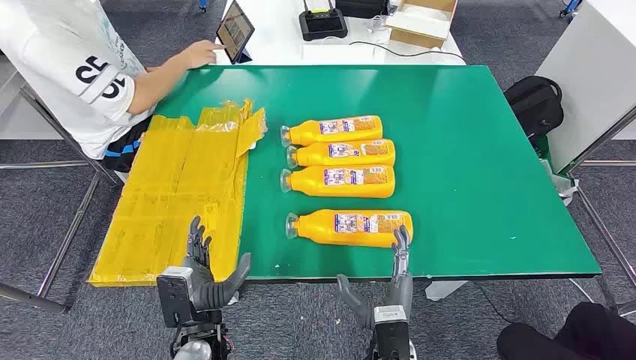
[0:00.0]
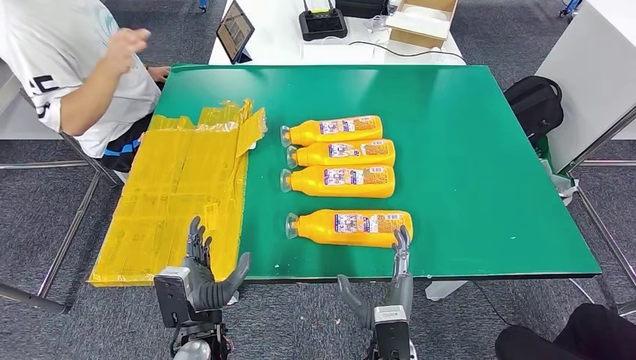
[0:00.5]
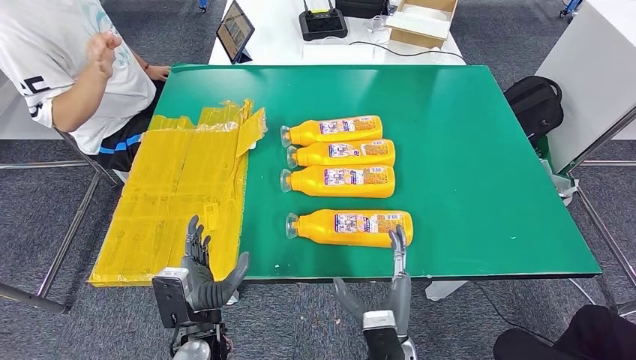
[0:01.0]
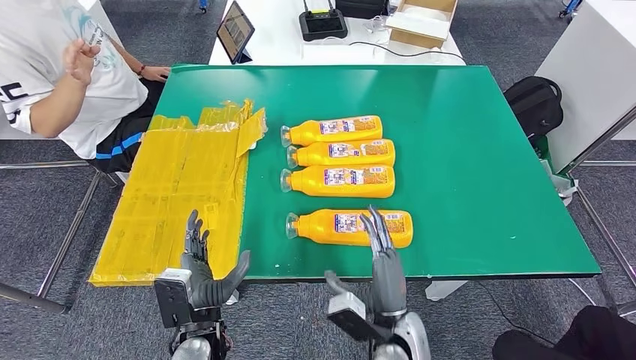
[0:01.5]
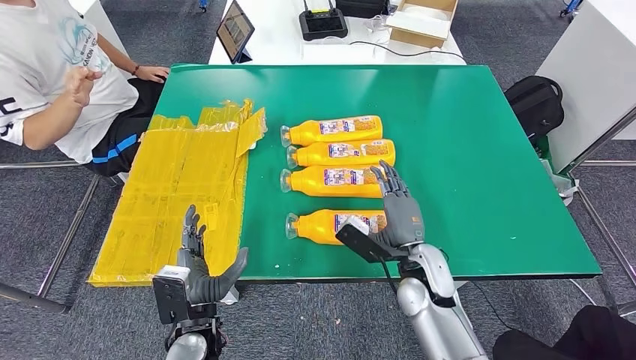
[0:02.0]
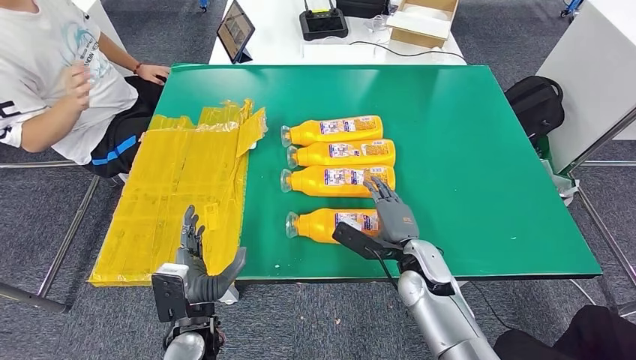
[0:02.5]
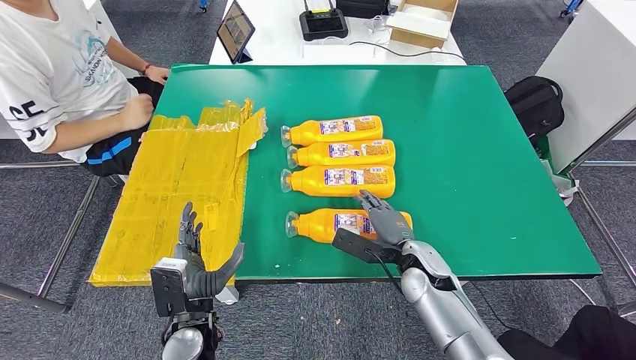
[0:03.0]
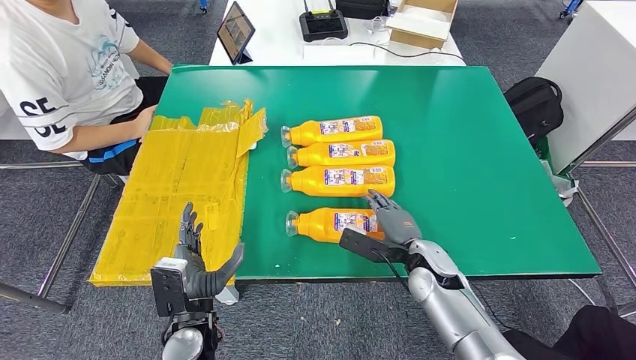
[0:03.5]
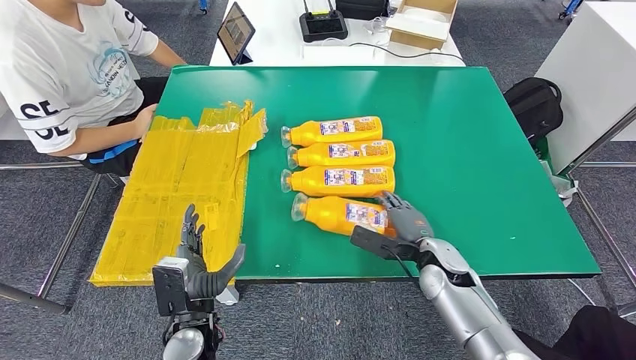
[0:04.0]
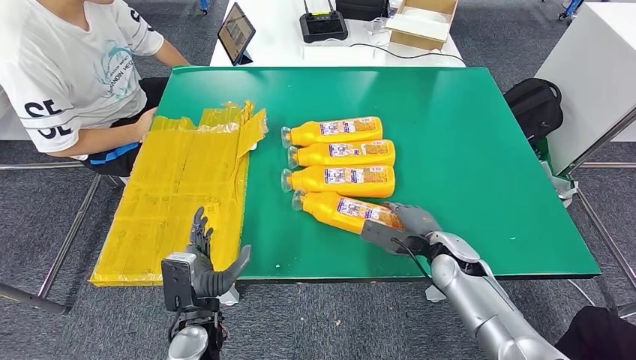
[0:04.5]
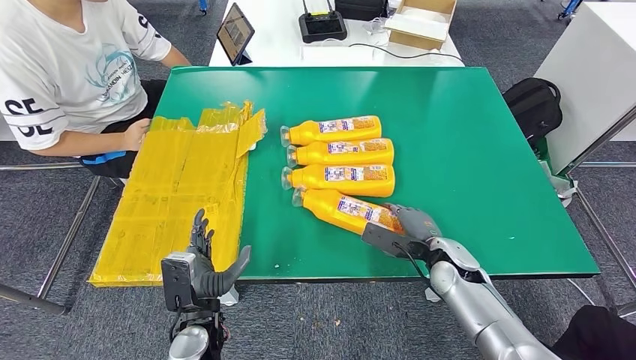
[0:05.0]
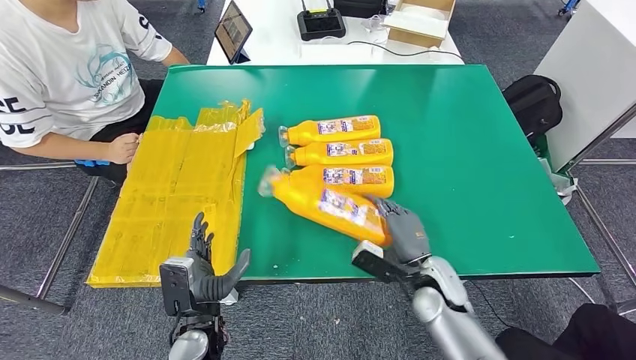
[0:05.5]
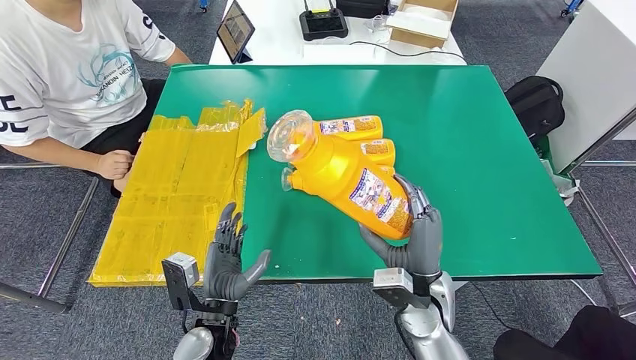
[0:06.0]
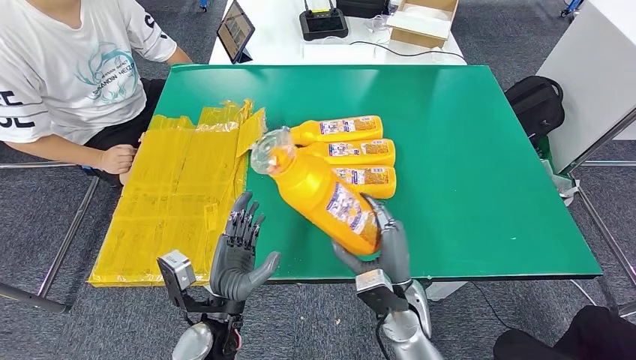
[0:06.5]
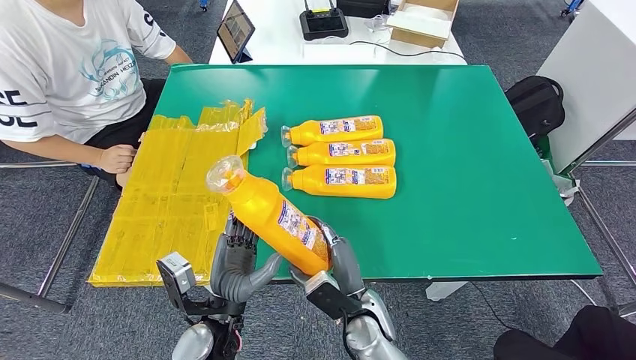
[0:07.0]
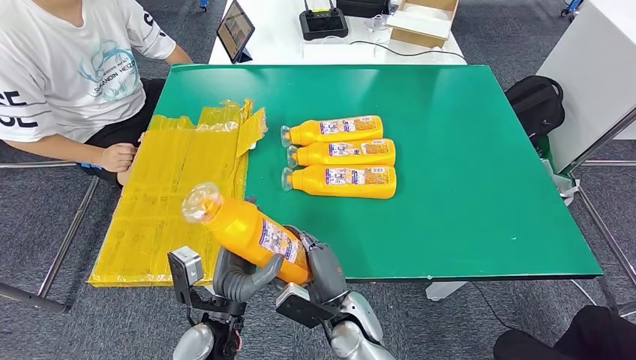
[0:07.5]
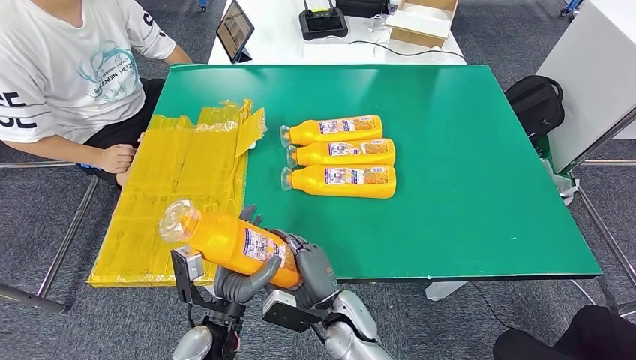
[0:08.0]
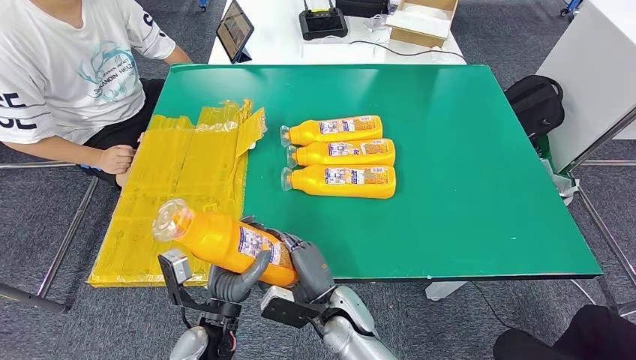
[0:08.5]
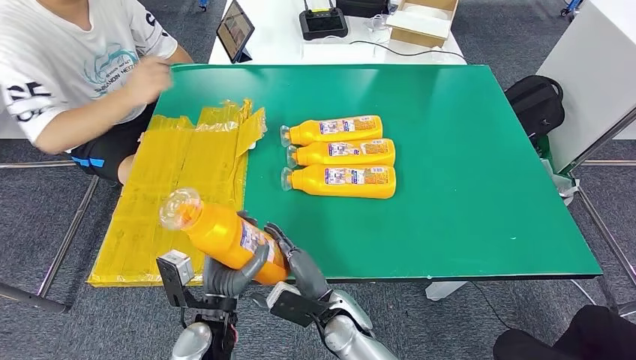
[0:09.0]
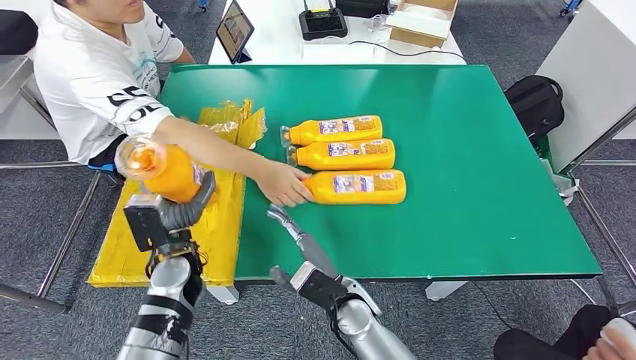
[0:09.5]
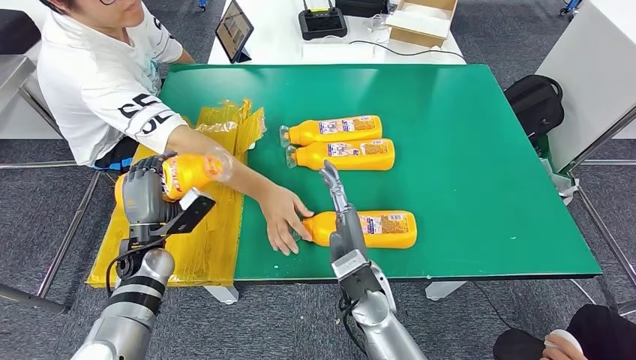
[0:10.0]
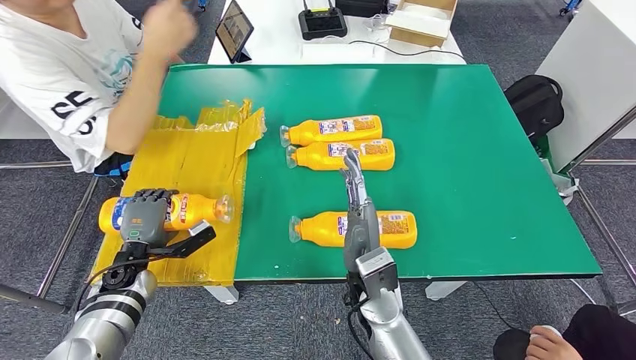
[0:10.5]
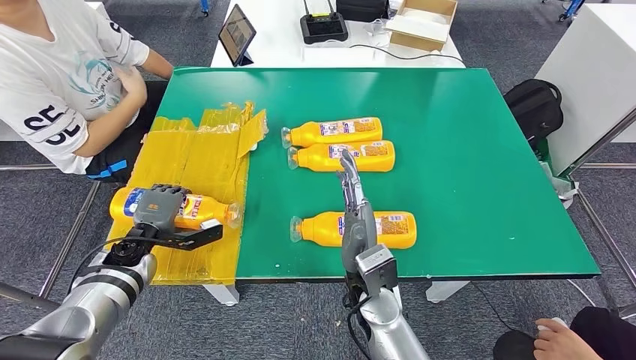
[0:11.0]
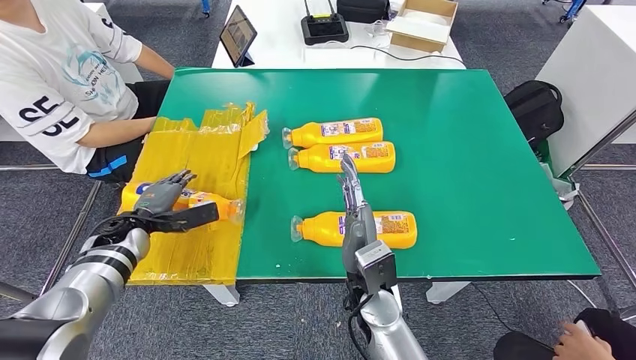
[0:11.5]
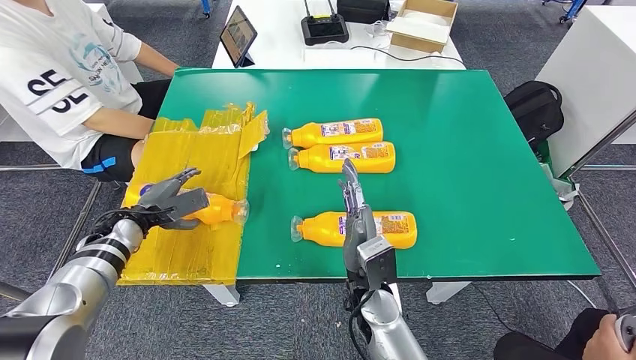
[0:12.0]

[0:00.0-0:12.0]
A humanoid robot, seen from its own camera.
Step, 0:00.0 to 0:08.5: Take the fast-moving consumer goods bottle from the table.
Step, 0:09.0 to 0:11.0: Flip the fast-moving consumer goods bottle to the front side.
0:02.0 to 0:04.0: The right hand shifts approximately 5 cm to the right.
0:06.0 to 0:08.0: The right hand is displaced to the left and downward by about 15 cm.

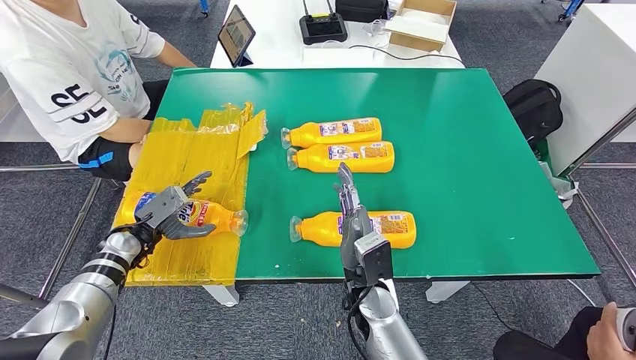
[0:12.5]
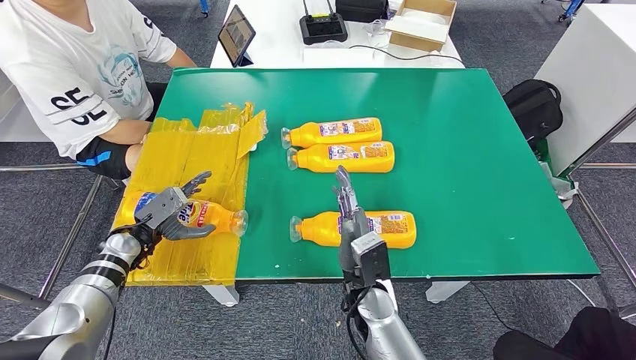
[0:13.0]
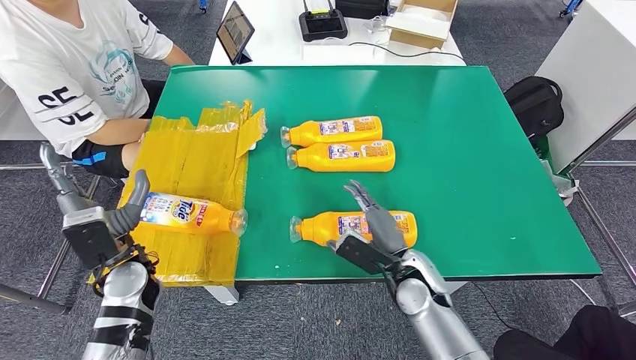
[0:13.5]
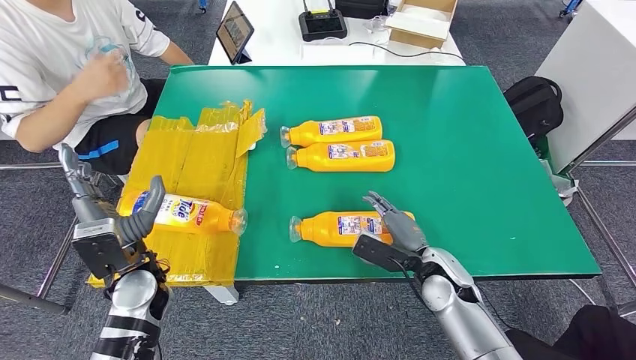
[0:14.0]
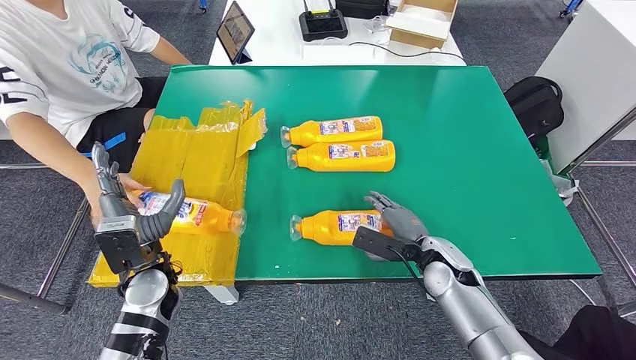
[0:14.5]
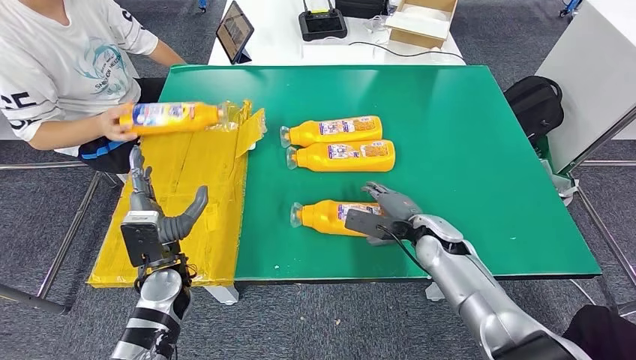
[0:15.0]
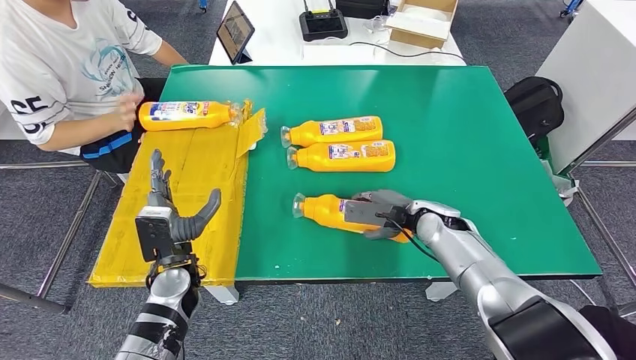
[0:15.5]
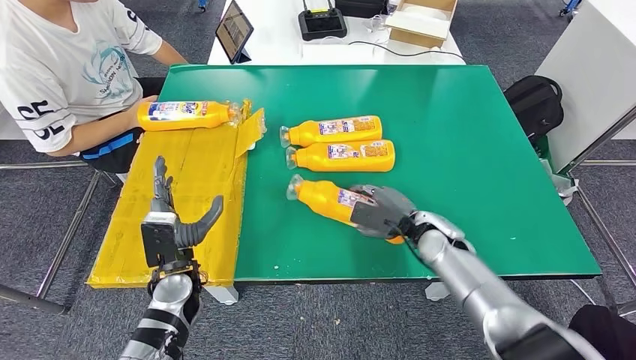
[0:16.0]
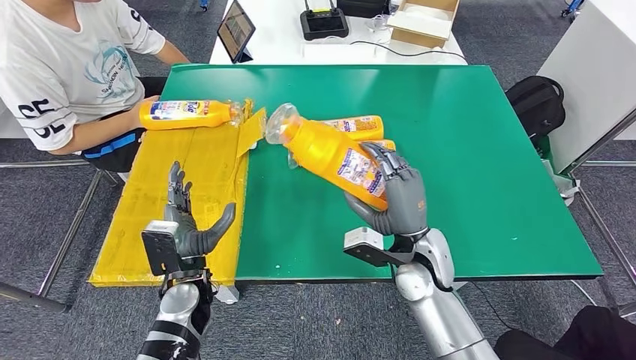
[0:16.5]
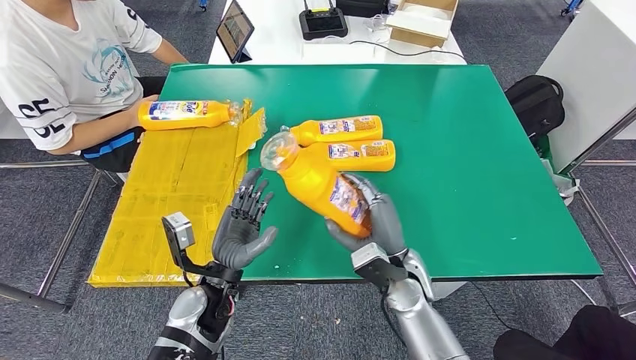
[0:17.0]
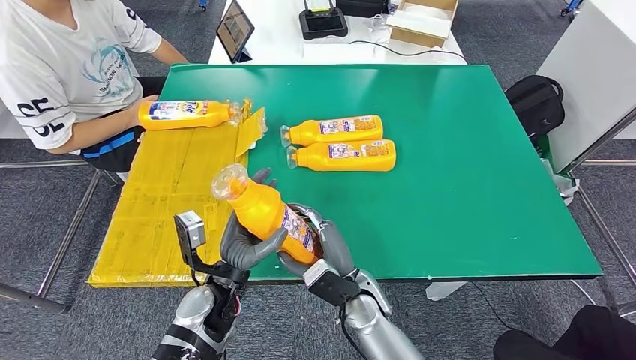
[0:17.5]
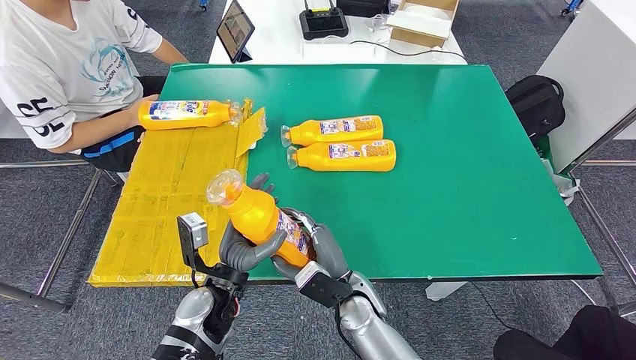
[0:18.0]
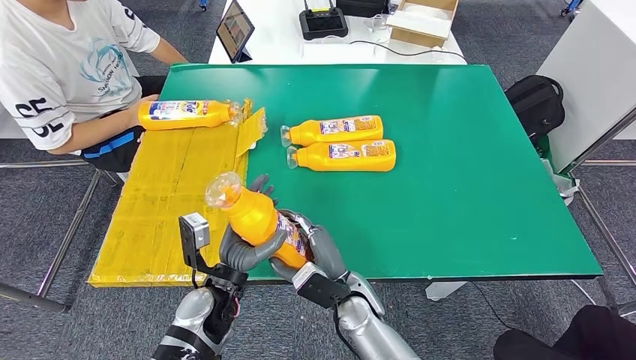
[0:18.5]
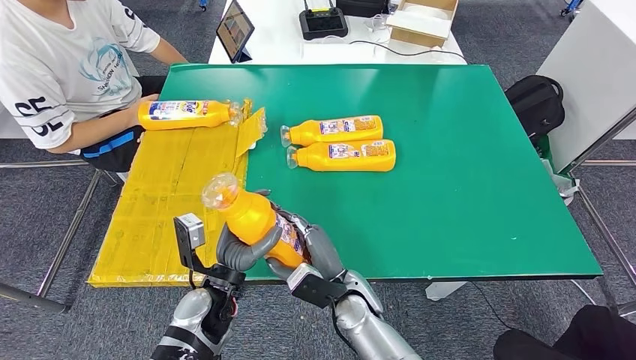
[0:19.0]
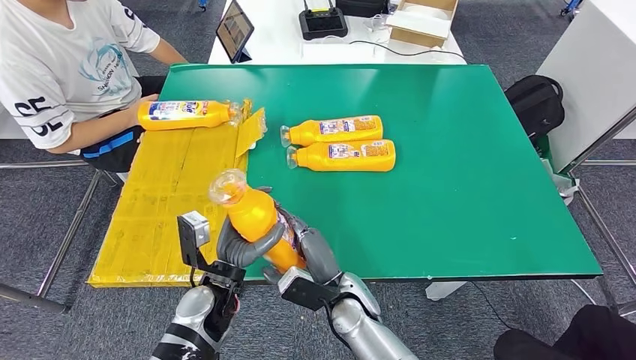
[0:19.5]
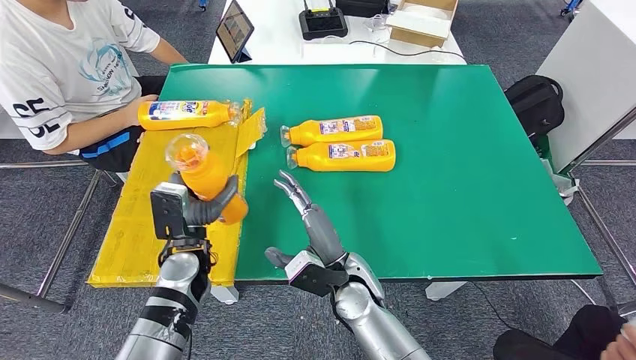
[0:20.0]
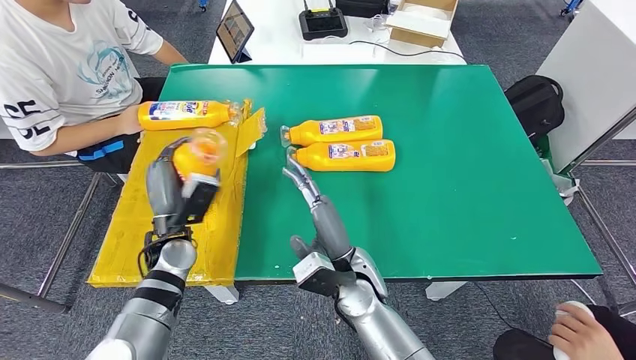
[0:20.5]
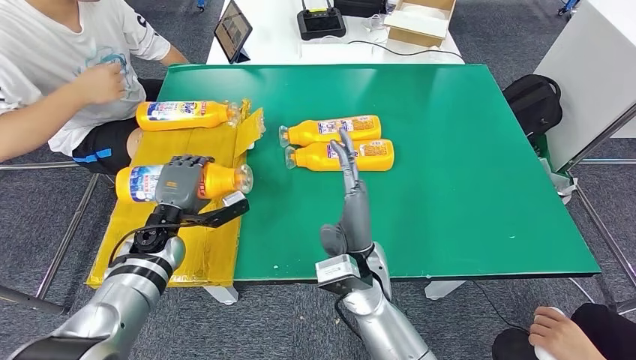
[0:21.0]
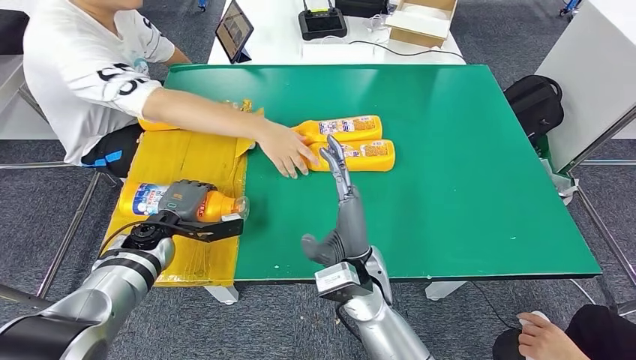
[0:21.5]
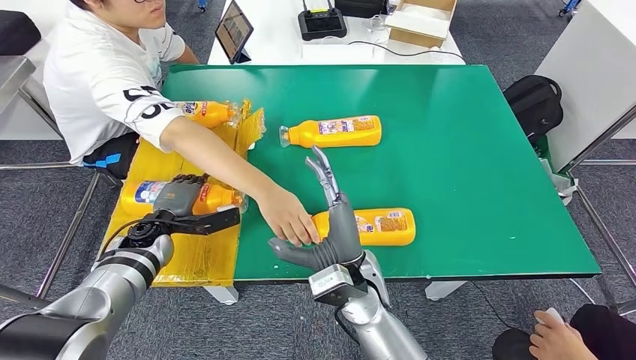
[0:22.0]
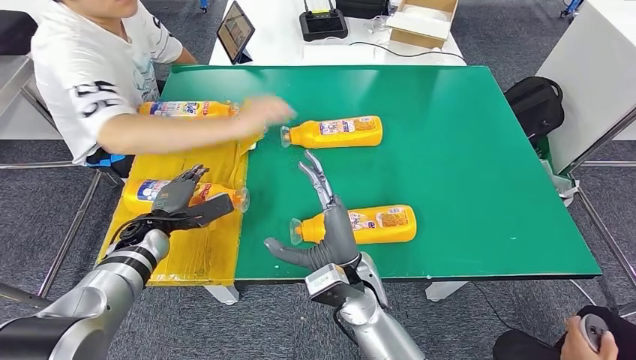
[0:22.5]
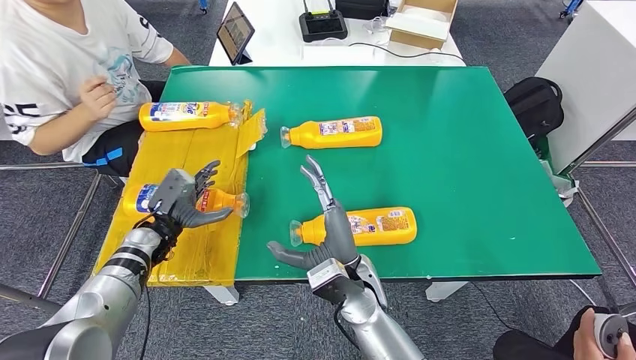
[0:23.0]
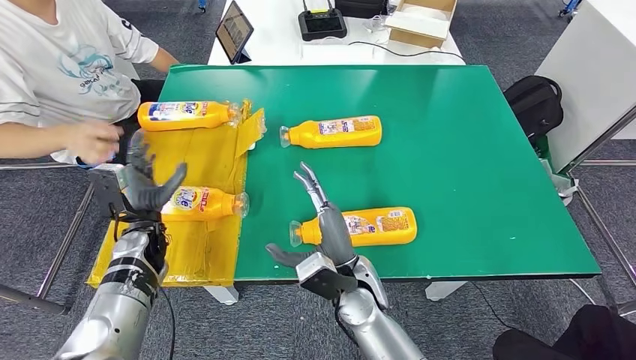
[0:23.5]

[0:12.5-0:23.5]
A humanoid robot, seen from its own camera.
Step, 0:12.5 to 0:18.0: Pick up the fast-moving consumer goods bottle from the table.
Step, 0:18.5 to 0:20.5: Flip the fast-moving consumer goods bottle to the front side.
0:18.0 to 0:20.0: The left hand is displaced forward and to the left by approximately 10 cm.
